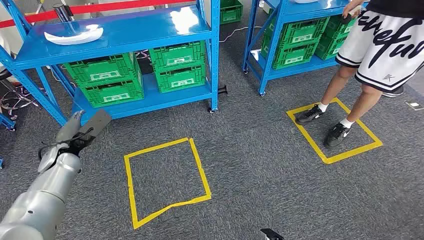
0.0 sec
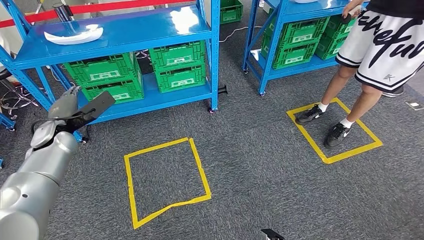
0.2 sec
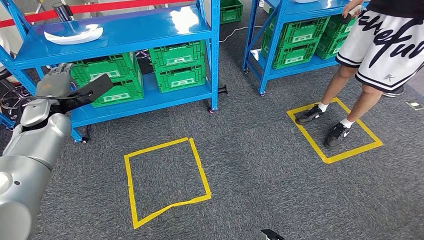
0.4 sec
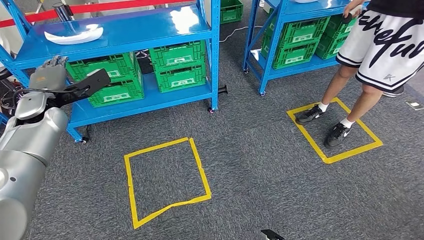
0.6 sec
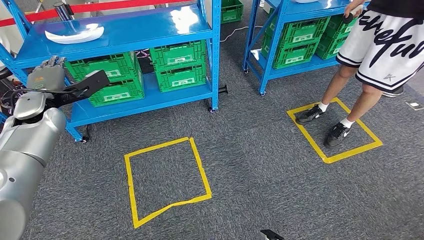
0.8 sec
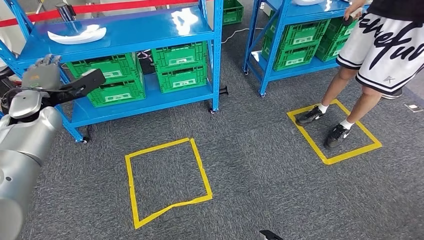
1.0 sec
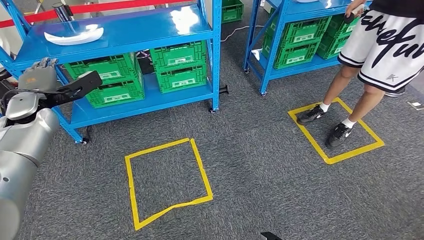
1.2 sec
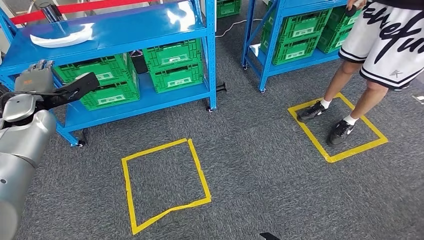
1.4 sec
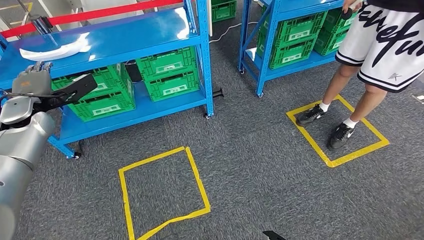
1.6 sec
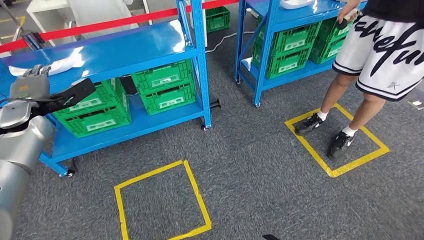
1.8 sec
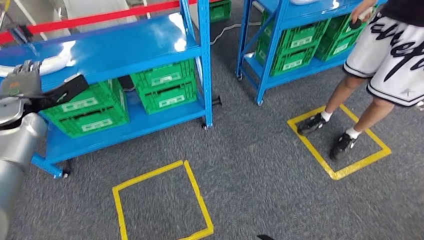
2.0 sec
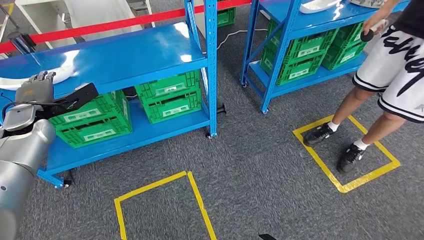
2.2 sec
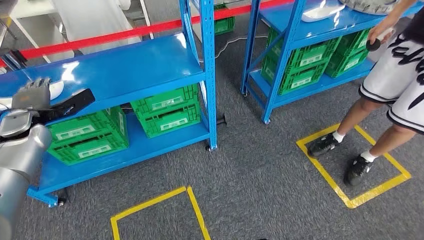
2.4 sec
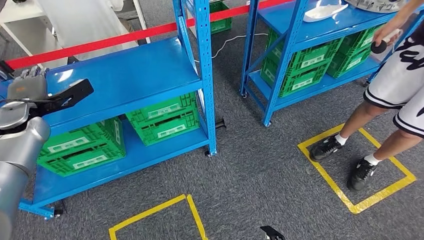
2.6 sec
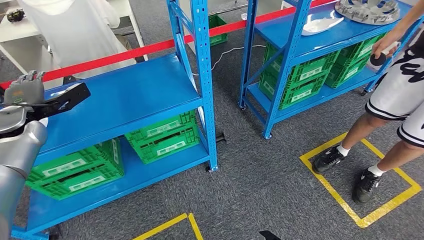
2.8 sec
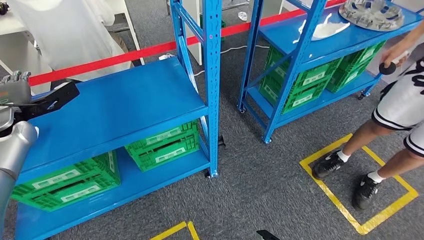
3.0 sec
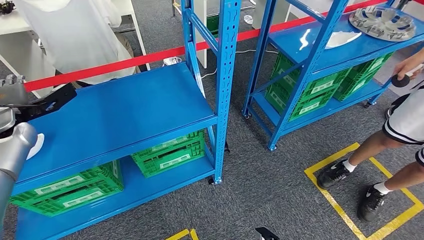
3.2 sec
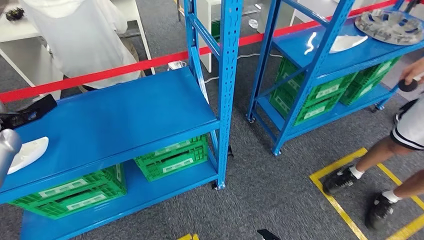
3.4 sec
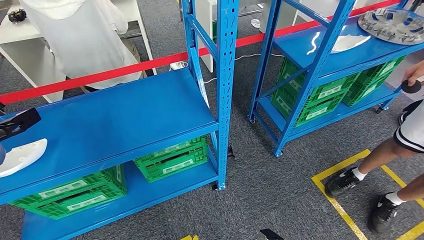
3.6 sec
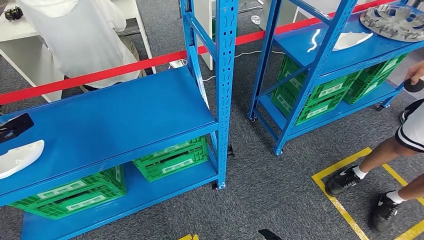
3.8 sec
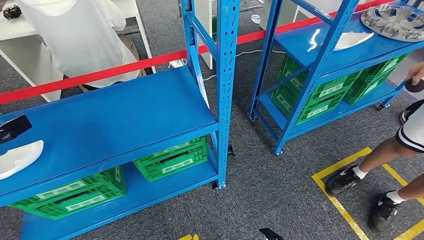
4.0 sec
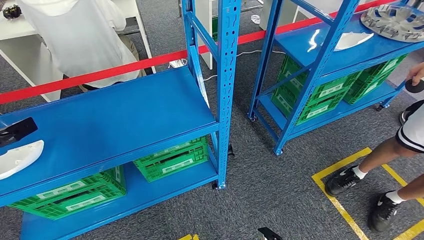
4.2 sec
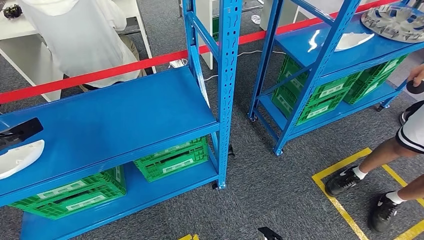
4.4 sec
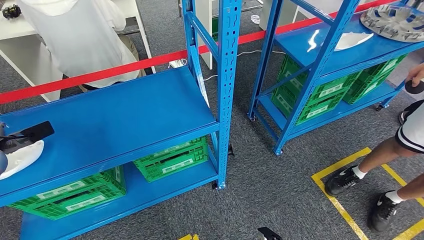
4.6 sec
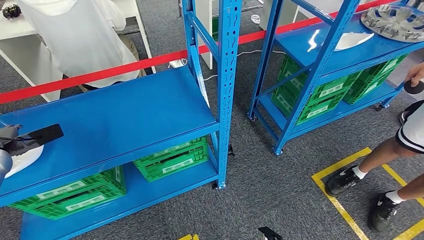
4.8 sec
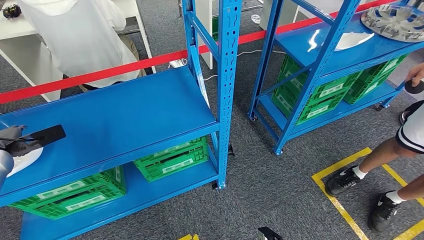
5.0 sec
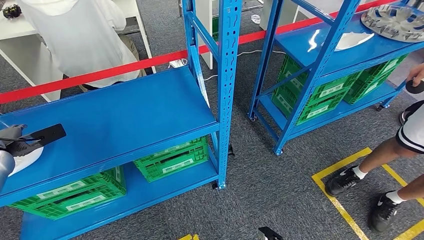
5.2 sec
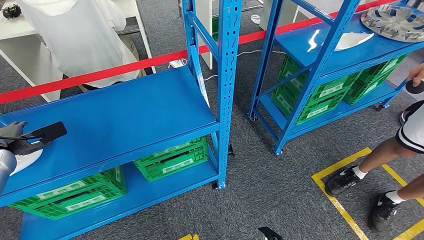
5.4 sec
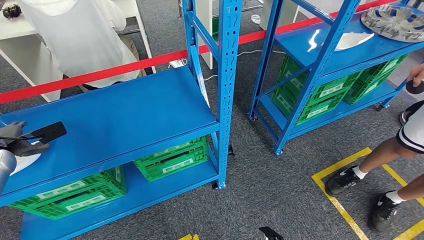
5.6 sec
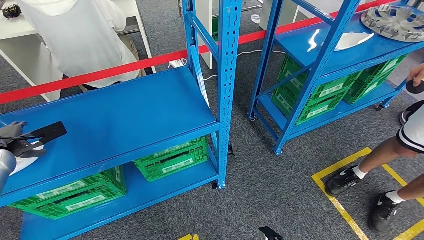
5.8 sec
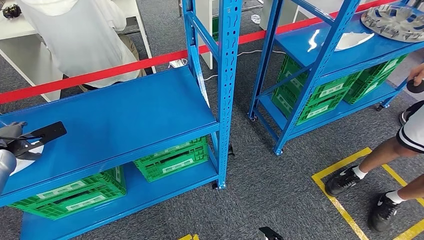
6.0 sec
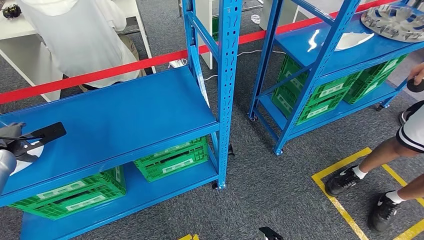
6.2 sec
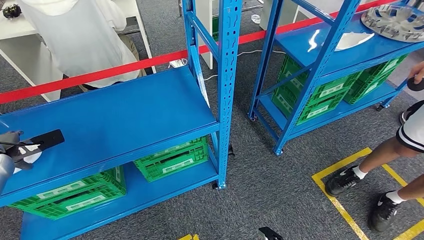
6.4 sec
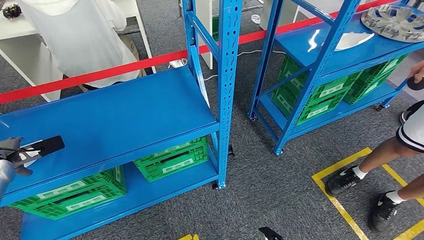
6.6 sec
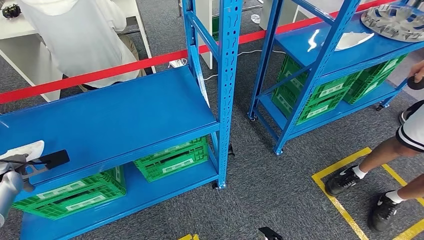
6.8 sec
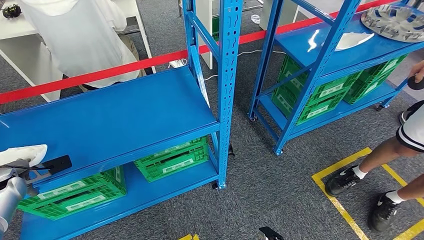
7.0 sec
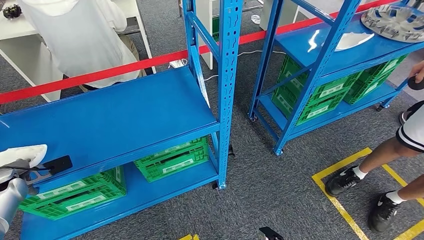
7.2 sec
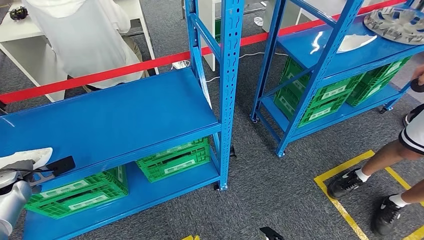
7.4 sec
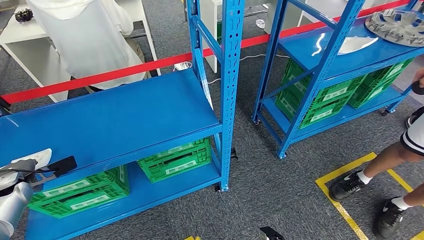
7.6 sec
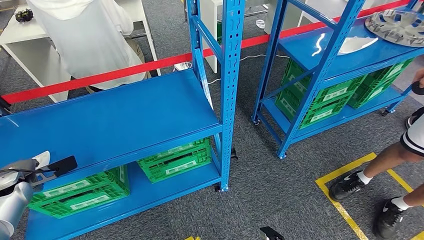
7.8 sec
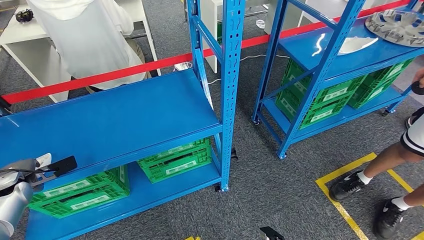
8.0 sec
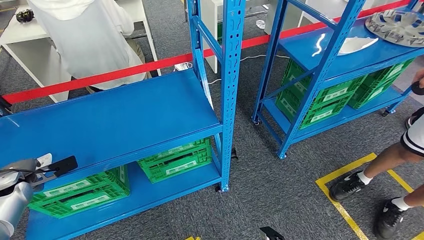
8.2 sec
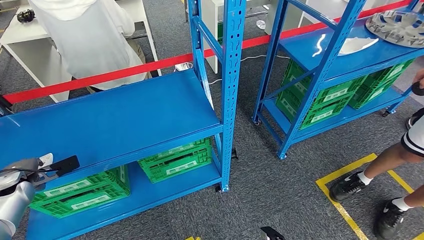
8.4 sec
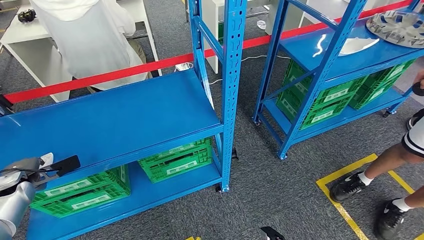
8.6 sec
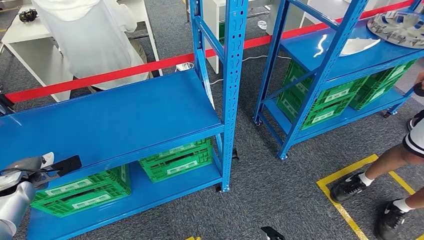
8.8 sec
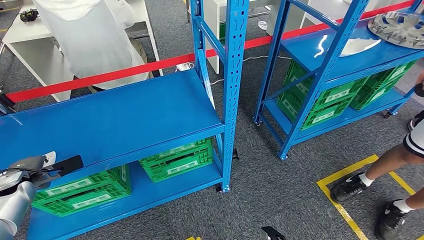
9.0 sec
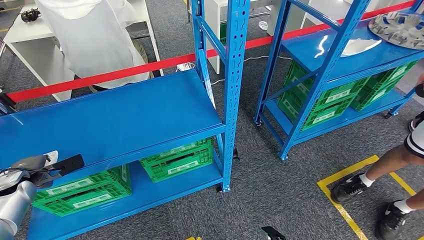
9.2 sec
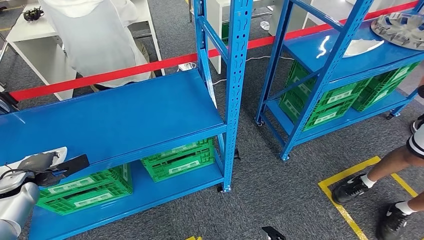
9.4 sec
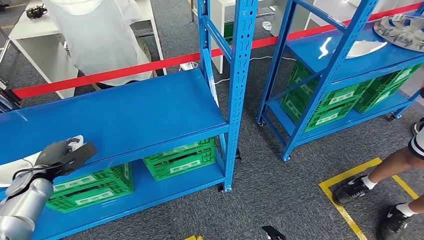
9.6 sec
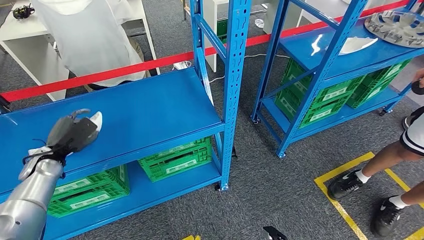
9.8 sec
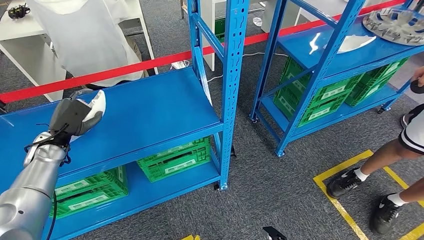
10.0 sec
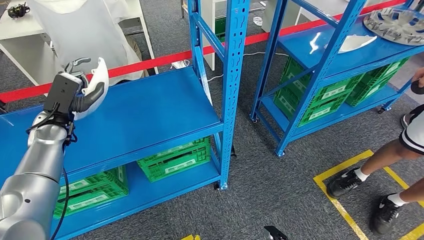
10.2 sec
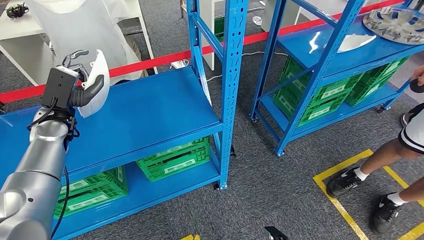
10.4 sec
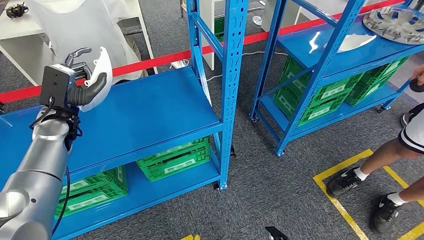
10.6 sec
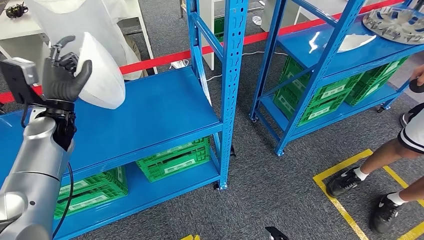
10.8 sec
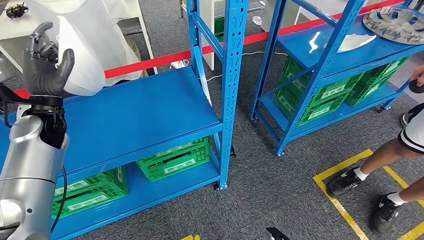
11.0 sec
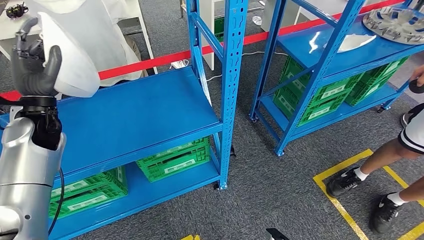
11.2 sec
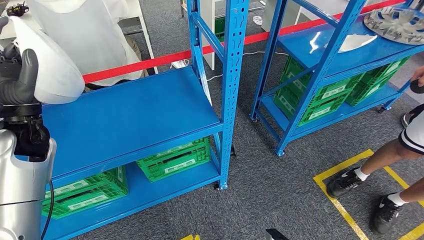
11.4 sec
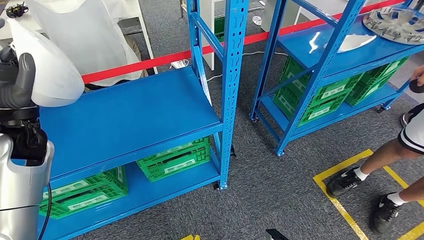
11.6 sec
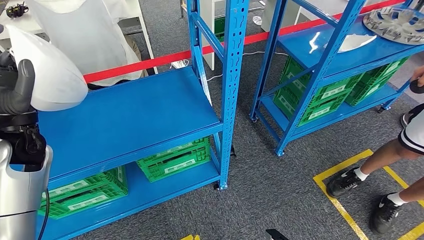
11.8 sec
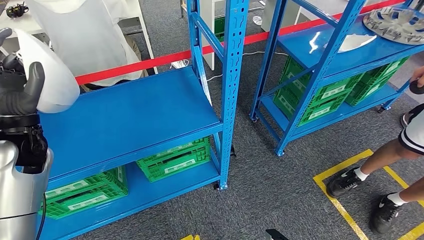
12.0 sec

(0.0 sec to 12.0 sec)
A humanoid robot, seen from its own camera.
Step, 0.0 sec - 11.4 sec: Pick up the small parts from the shelf.
4.4 sec - 6.0 sec: The hands move only a little.
7.6 sec - 9.0 sec: The hands stay close to where they were, moving slightly.
10.4 sec - 12.0 sec: The left hand is displaced backward by roughly 5 cm.

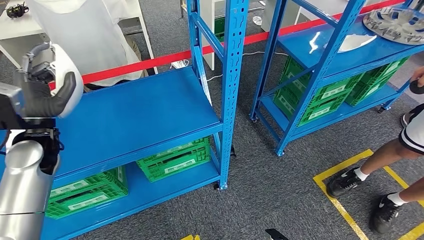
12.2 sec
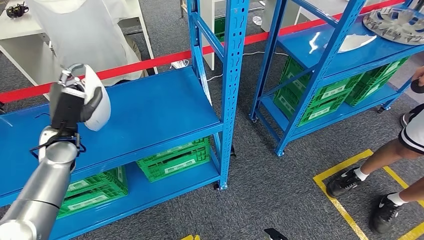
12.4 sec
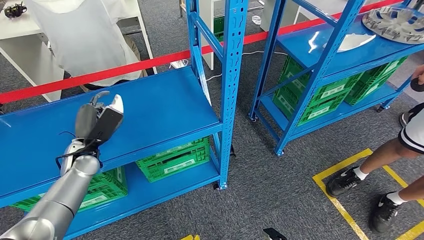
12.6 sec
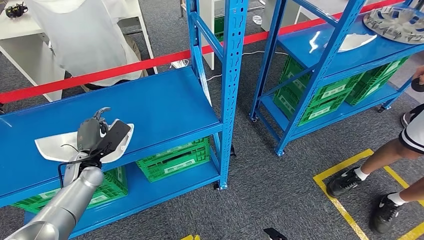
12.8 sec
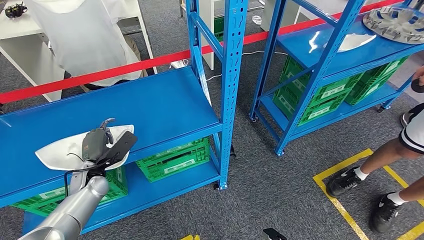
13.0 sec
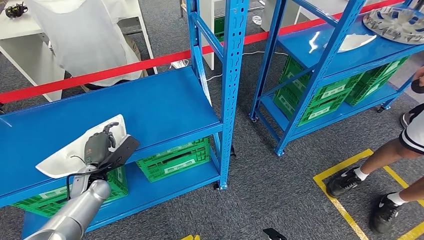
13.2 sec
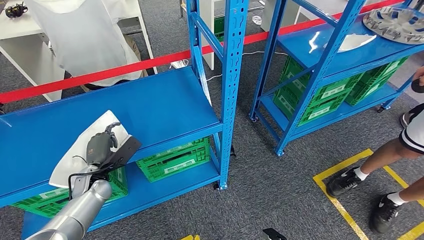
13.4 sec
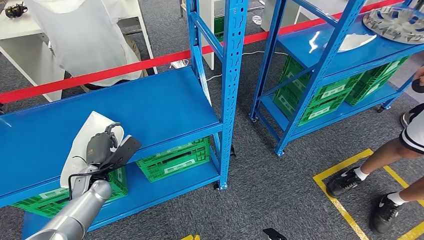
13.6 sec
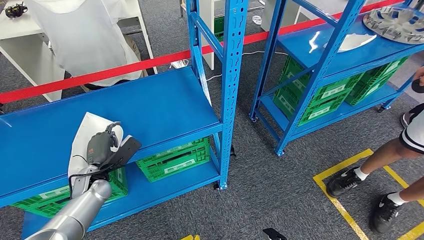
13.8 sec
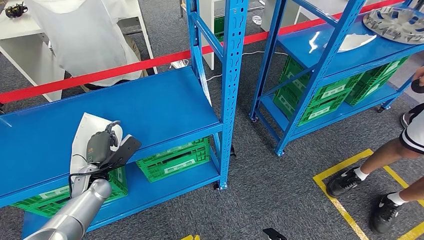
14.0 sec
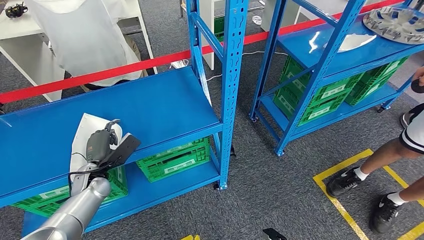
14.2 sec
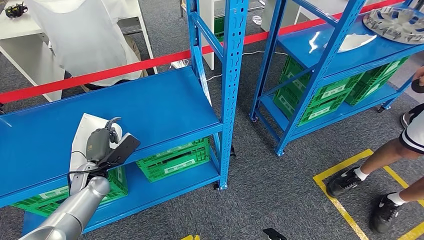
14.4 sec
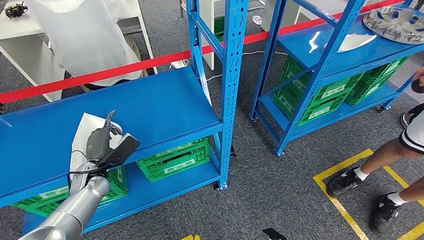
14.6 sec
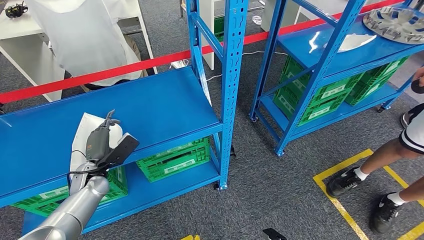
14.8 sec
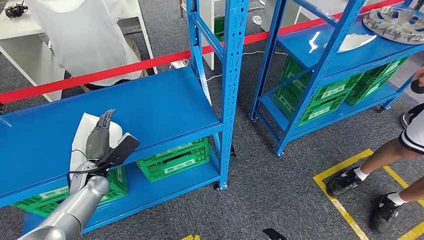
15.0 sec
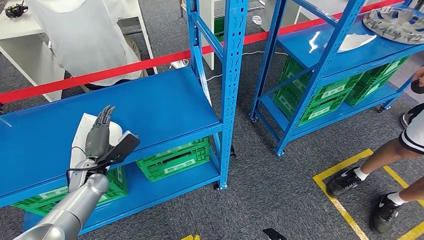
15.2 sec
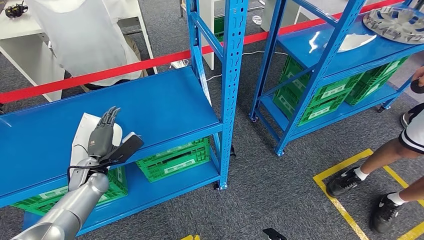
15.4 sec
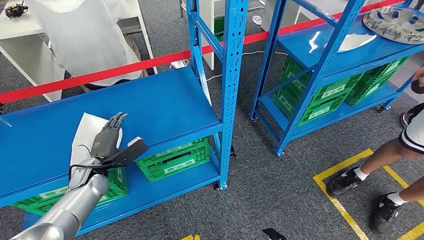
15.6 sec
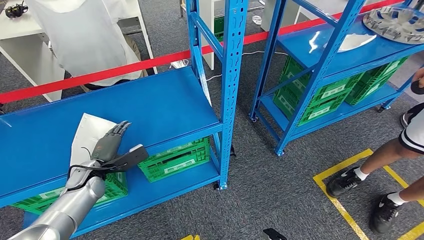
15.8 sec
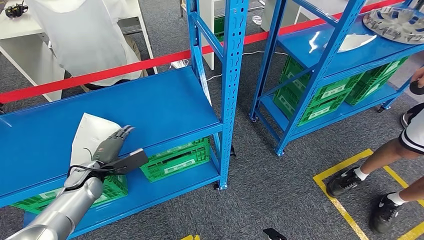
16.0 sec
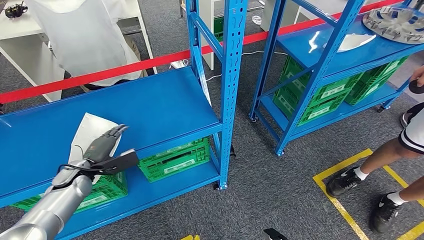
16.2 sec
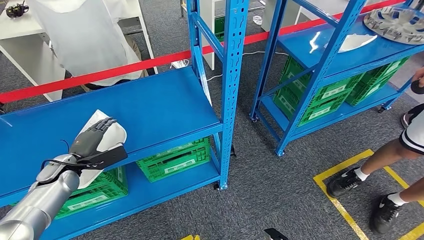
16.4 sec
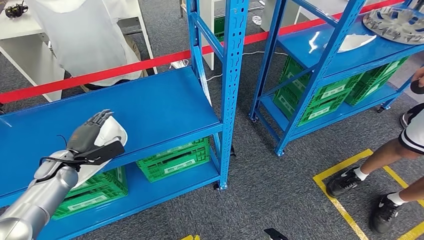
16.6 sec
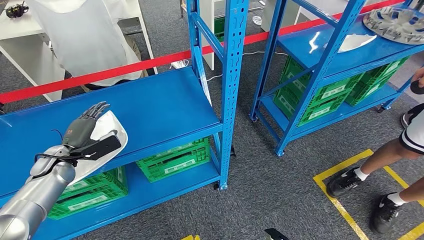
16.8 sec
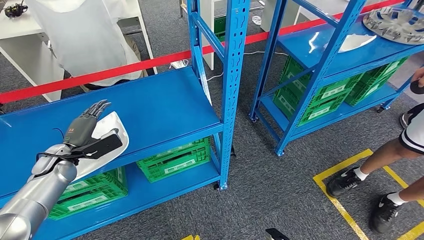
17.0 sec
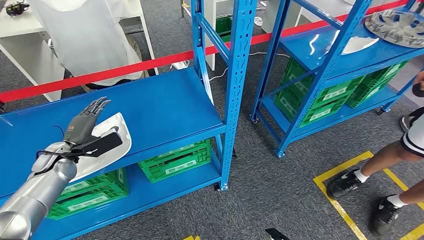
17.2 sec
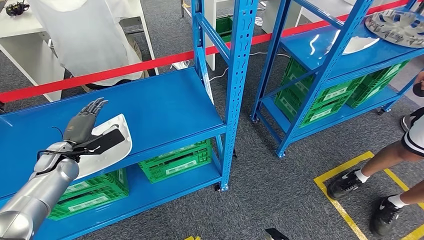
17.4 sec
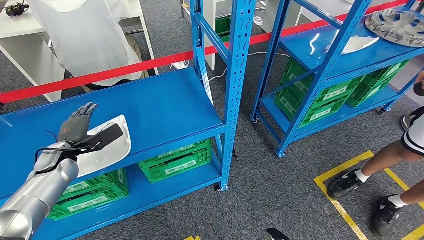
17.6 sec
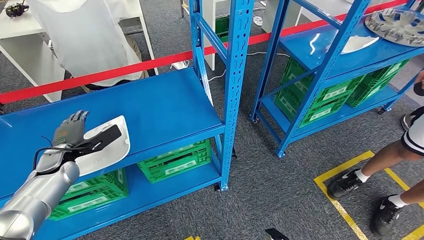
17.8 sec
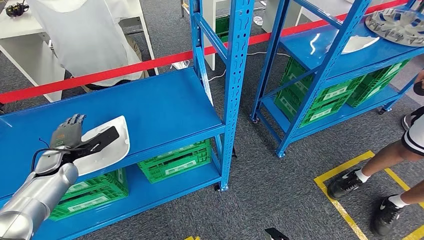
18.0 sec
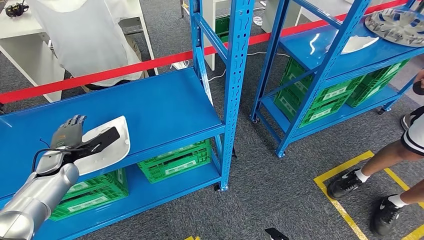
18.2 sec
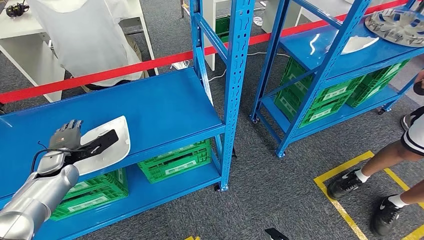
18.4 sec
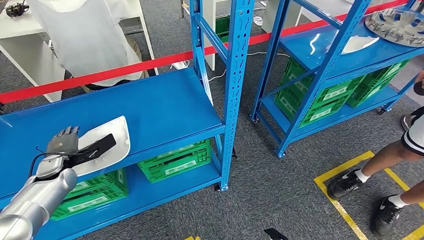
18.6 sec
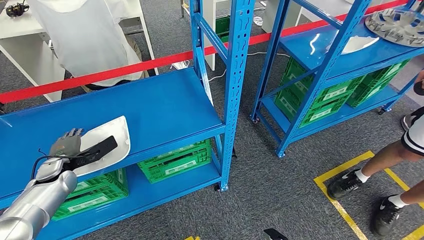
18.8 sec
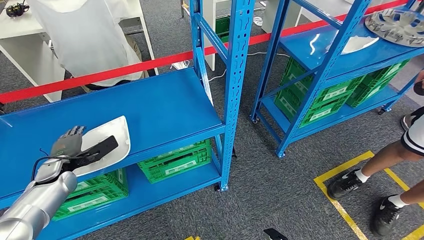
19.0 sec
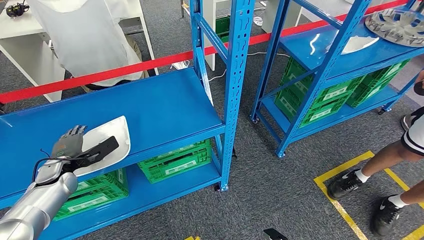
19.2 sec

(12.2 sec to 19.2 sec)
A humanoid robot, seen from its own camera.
12.2 sec - 13.6 sec: The left hand moves downward, some 20 cm.
13.6 sec - 15.0 sec: The hands make only small movements.
15.0 sec - 16.4 sec: The left hand goes about 10 cm to the left.
17.8 sec - 19.2 sec: The hands move only a little.
